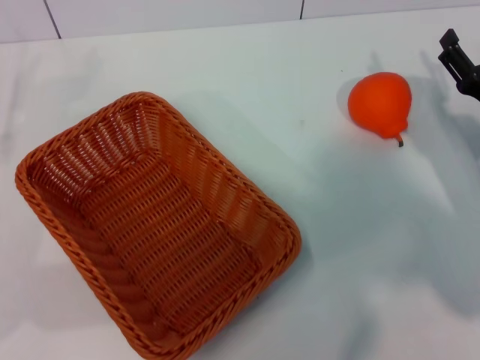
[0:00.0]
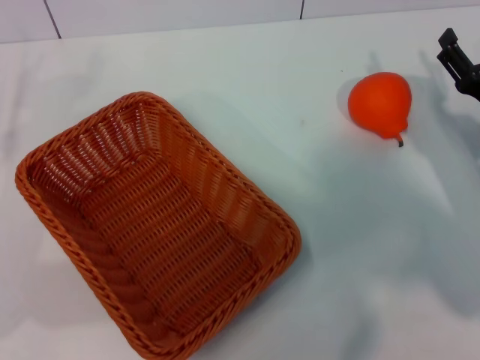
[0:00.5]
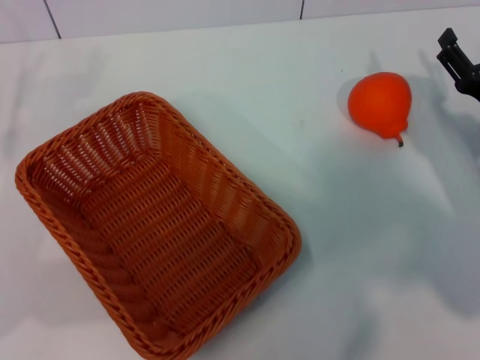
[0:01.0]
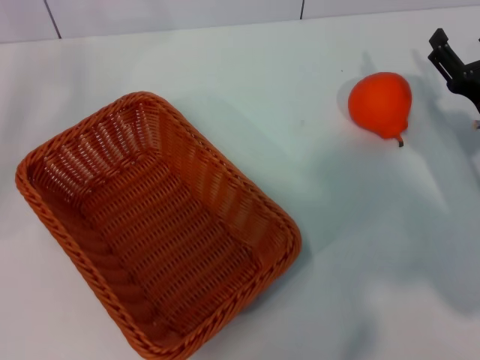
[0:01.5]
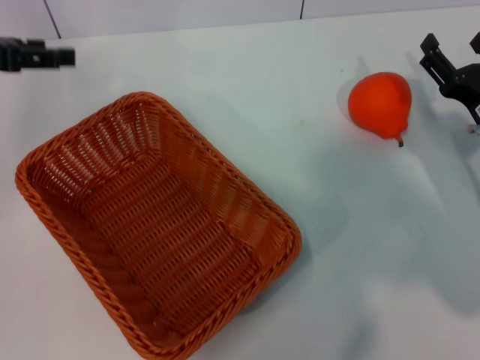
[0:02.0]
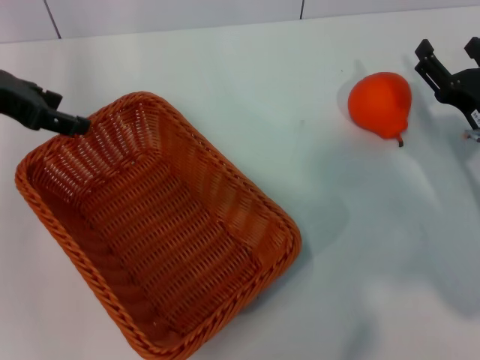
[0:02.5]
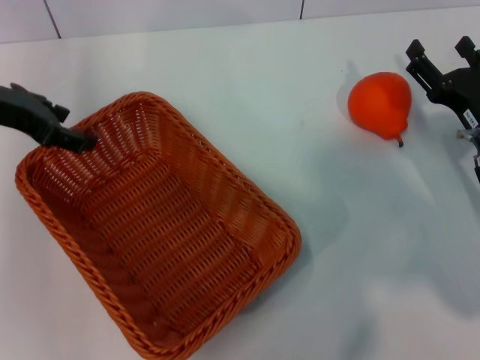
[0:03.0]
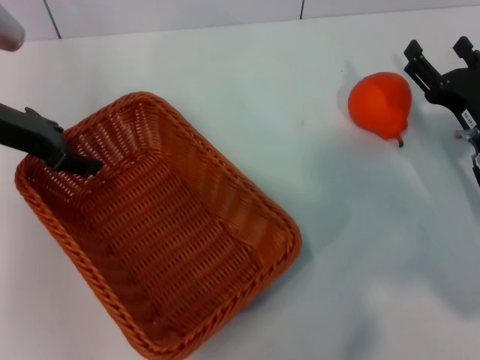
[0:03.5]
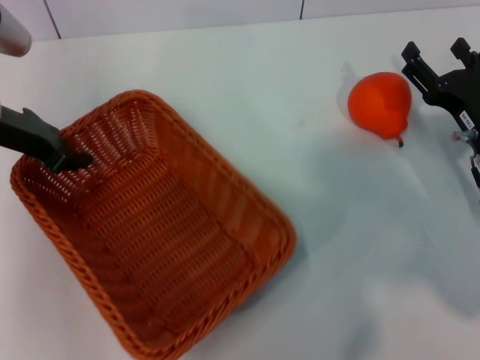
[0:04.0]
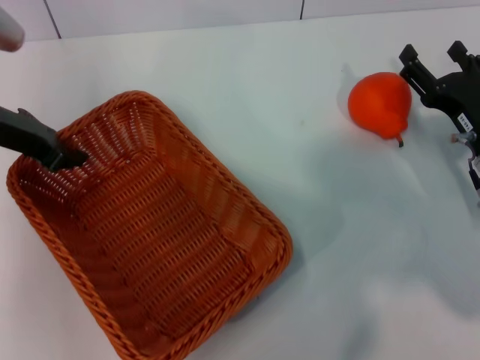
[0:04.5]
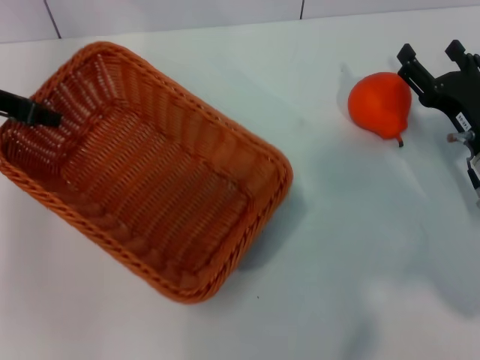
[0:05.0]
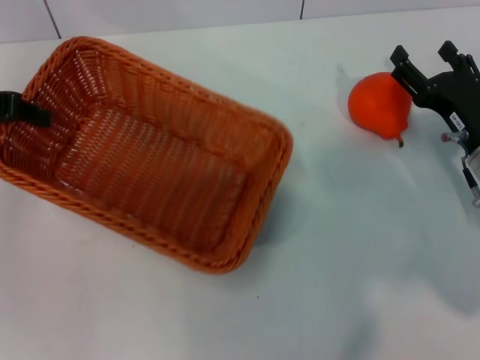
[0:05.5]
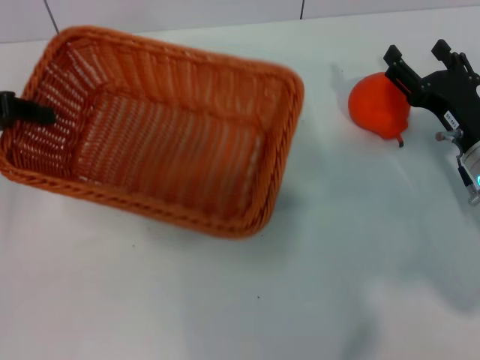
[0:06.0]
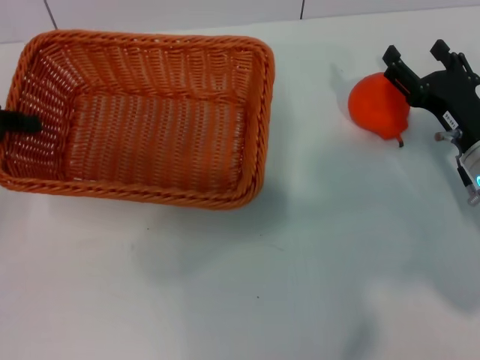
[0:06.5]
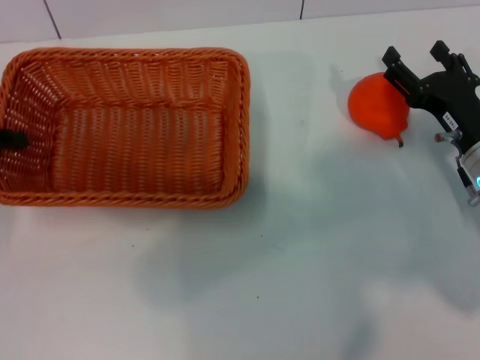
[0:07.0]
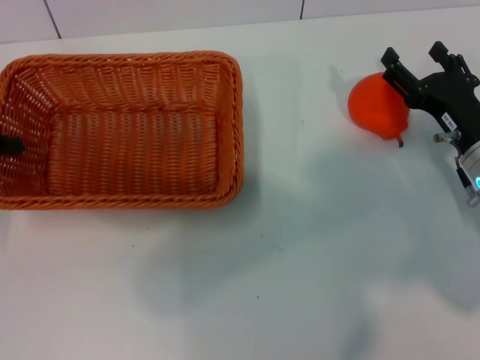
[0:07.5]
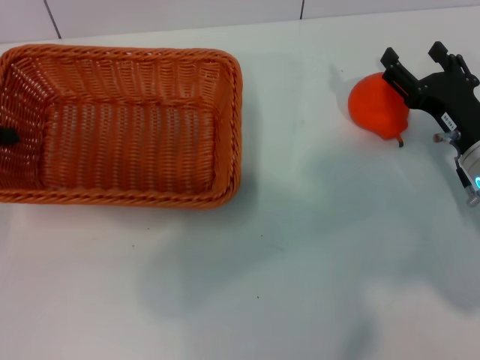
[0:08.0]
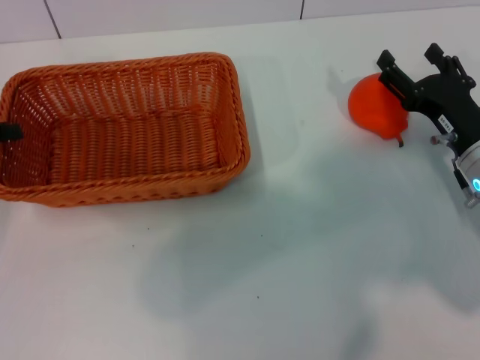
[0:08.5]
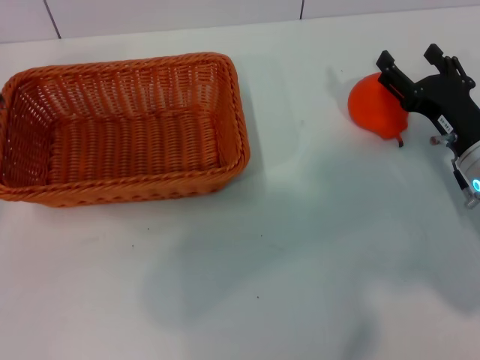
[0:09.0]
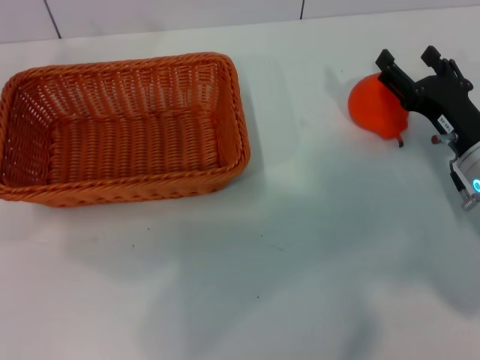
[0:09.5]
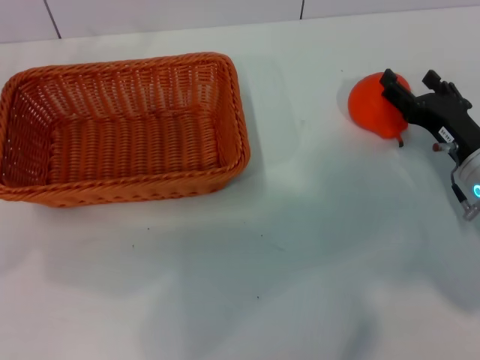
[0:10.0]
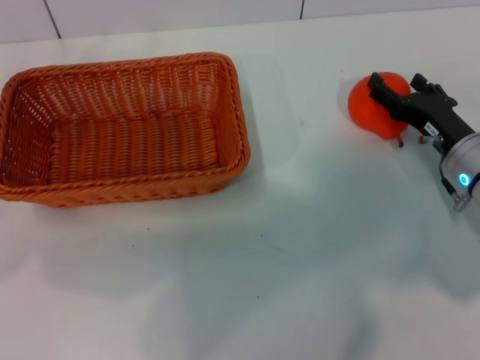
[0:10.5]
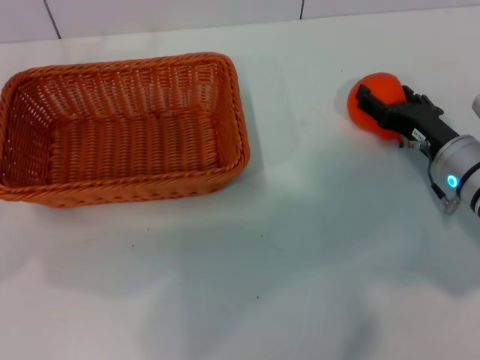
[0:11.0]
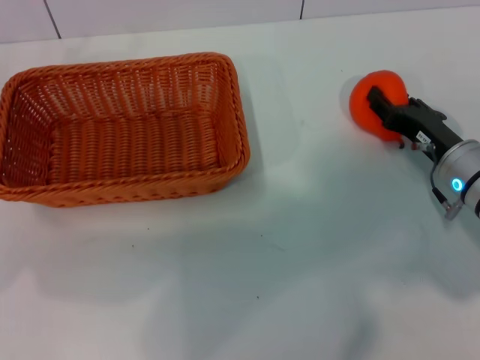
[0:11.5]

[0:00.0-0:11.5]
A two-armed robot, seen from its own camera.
Task of the whole recording: the left gripper pick up the yellow basket and place it horizontally in the middle of the table, the right gripper pick up the orange and place it into the yellow basket.
Step, 0:00.0 to 0:04.5: Pick up the light basket with the left gripper.
Step, 0:05.5 to 0:08.5: Place the light basket in the center of view with the left gripper.
0:00.0 to 0:02.0: The left gripper heads upward and forward, covering approximately 15 cm.
0:02.0 to 0:04.0: The left gripper shifts approximately 5 cm to the right, and closes.
0:04.0 to 0:06.0: The left gripper heads to the left, covering roughly 10 cm, and closes up.
0:06.0 to 0:07.5: The left gripper travels downward by approximately 5 cm.
0:07.5 to 0:09.5: The left gripper goes some 5 cm upward, and opens up.
0:09.5 to 0:11.5: There are only small adjustments of the grippers.

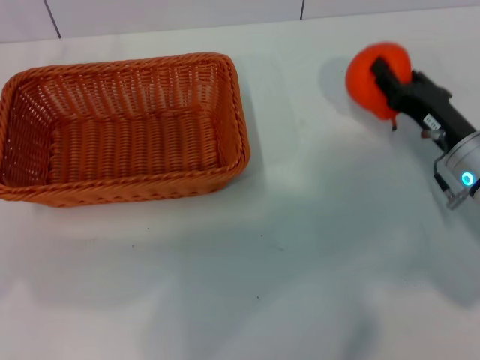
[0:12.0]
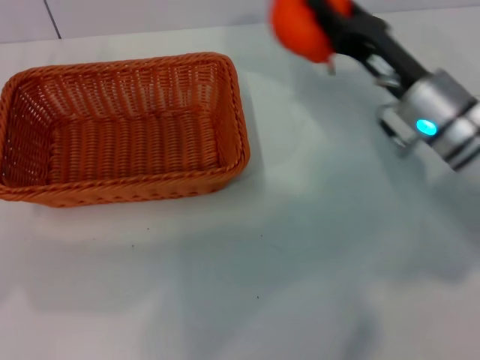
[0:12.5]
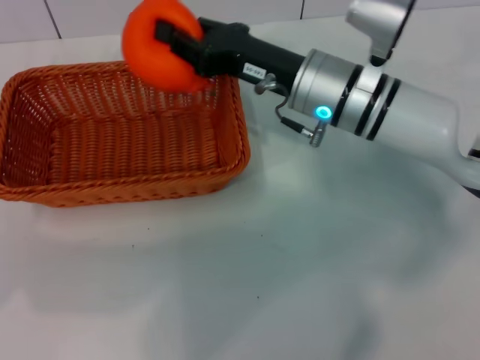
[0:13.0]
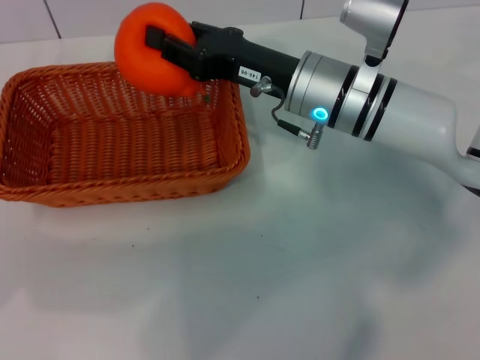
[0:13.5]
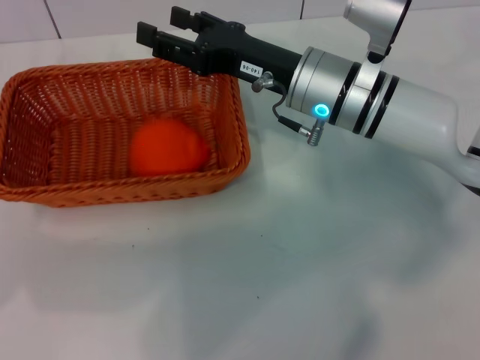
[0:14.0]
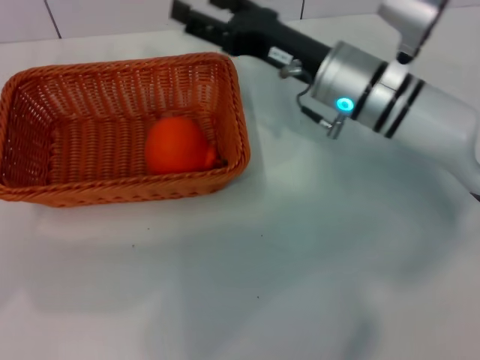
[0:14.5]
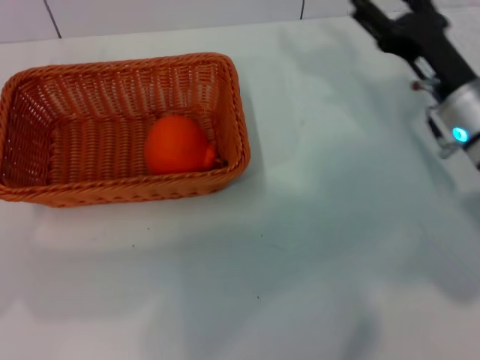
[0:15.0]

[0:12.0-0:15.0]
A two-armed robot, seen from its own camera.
Task of the whole recording: the left gripper pick up the yellow basket and place it horizontally in the middle of the table, the right gripper pick up the orange and place it into the yellow basket.
Step, 0:12.5 to 0:14.0: Place the orange into the light basket with the right gripper.
0:12.0 to 0:13.5: The right gripper is displaced to the left, upward and forward by about 20 cm.
0:13.5 to 0:15.0: The right gripper shifts some 15 cm to the right, and opens its fingers.

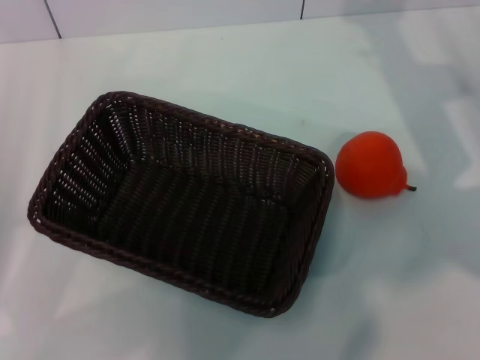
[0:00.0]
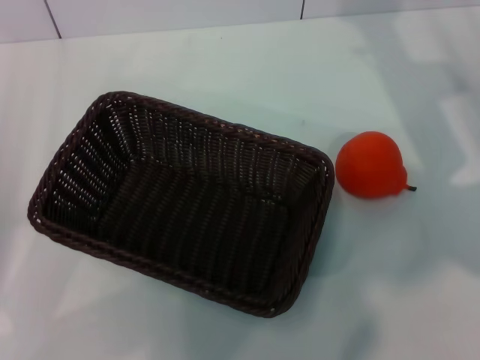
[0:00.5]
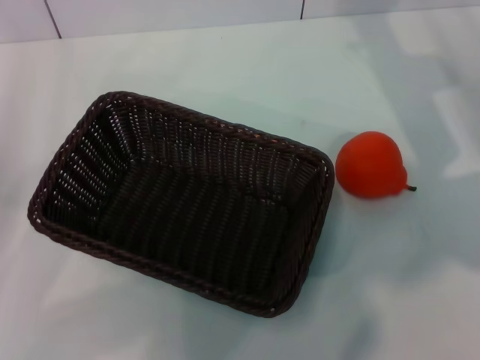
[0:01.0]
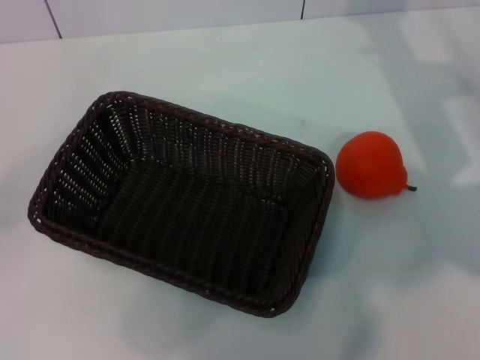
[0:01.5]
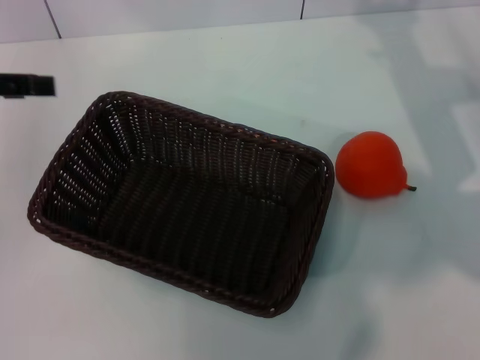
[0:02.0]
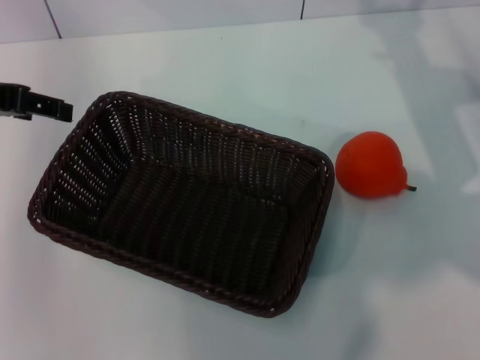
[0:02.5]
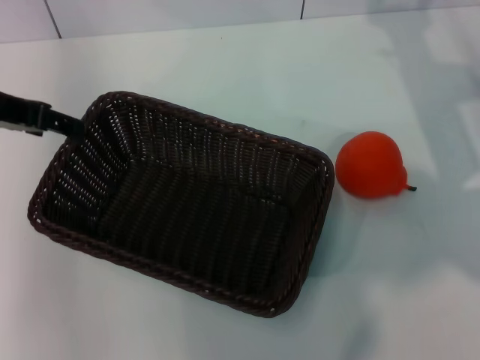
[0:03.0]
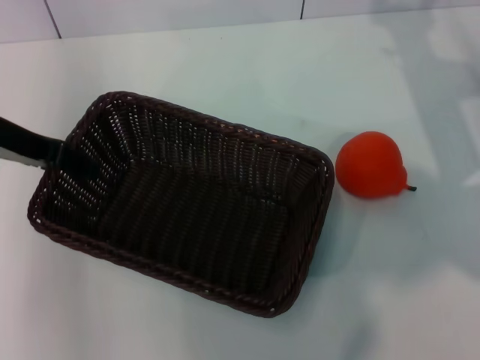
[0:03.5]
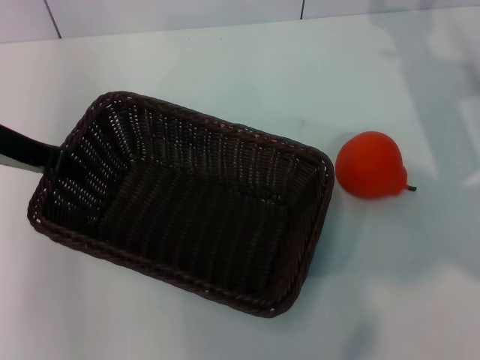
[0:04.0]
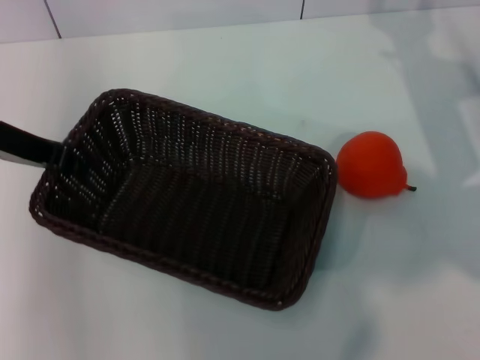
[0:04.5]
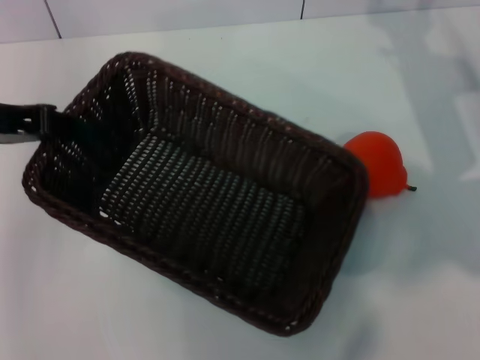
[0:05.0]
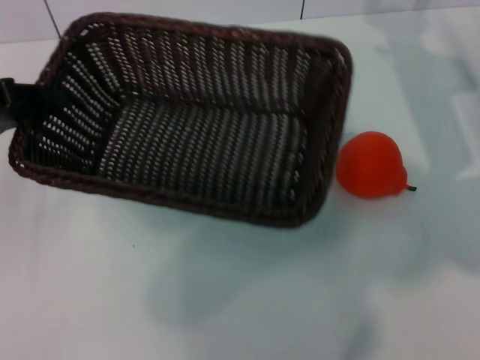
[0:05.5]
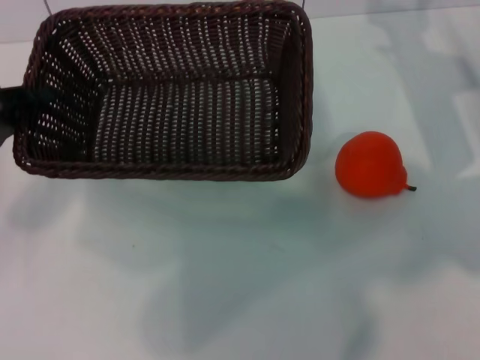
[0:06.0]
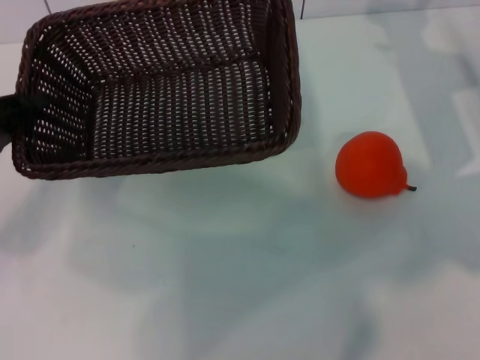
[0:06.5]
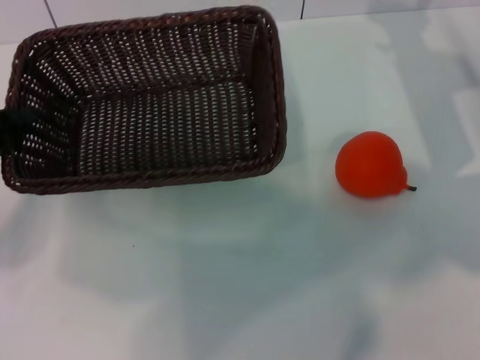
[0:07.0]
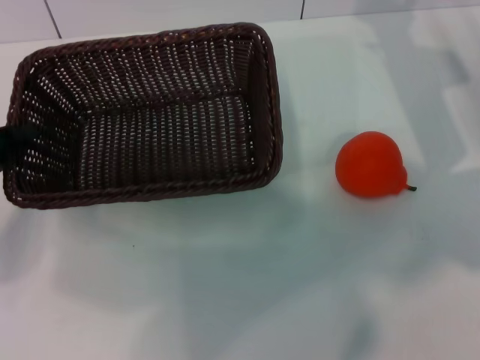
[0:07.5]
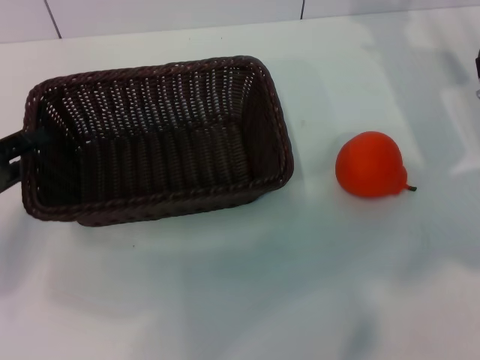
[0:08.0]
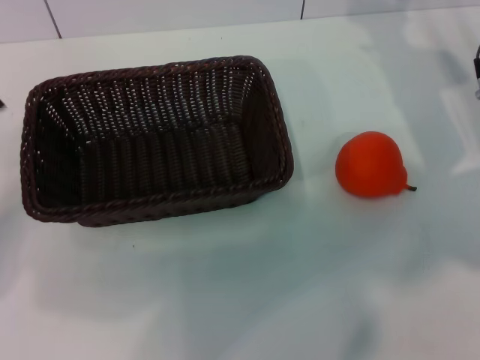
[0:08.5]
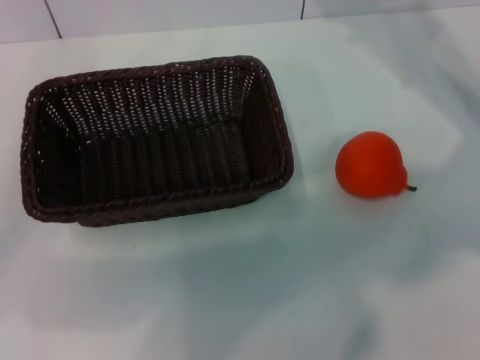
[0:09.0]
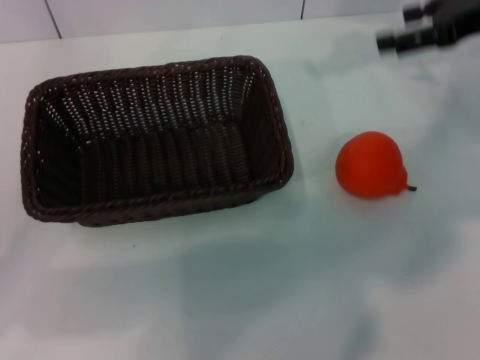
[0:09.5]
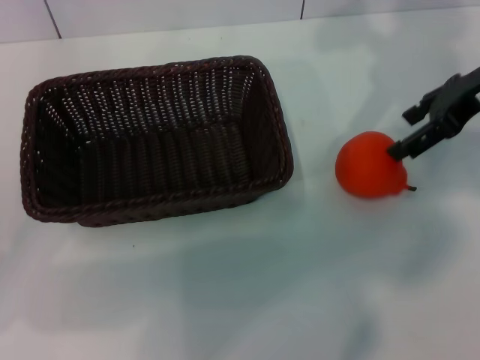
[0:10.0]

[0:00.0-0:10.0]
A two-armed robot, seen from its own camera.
Task of the whole recording: the left gripper pick up the black basket and place it horizontally in the middle of the table, the right gripper pick up the orange and place it into the black basket.
Step, 0:00.0 to 0:04.5: Pick up the dark basket with the left gripper.
Step, 0:05.0 to 0:08.0: Place the dark basket in the center of view with the left gripper.
0:00.0 to 0:02.0: The left gripper moves upward and forward, roughly 15 cm.
0:02.0 to 0:04.0: The left gripper travels to the right and downward by about 10 cm, and closes.
0:04.0 to 0:06.0: The left gripper heads to the left, downward and backward, covering roughly 10 cm, and closes its fingers.
0:06.0 to 0:08.0: The left gripper shifts by approximately 5 cm.
0:08.0 to 0:10.0: The right gripper travels upward by roughly 10 cm. The left gripper opens.
